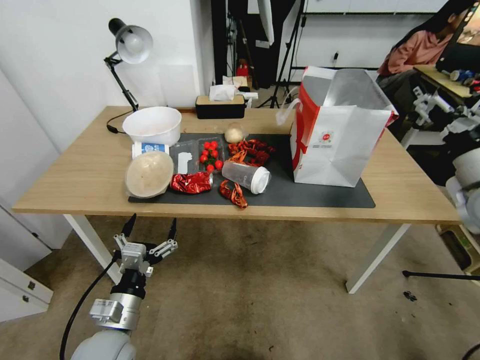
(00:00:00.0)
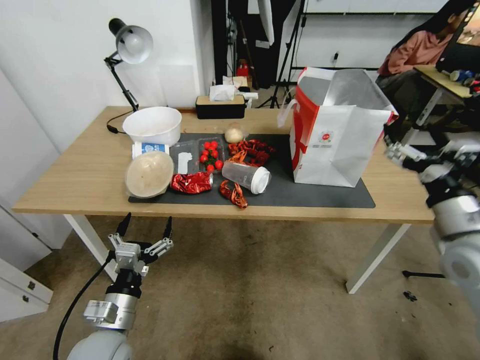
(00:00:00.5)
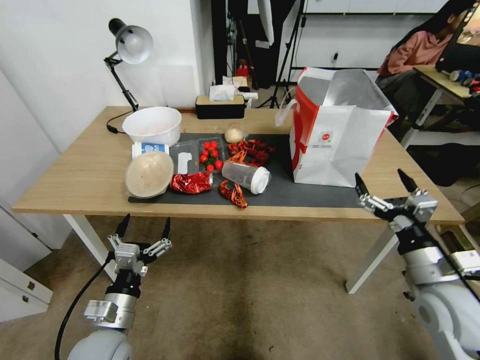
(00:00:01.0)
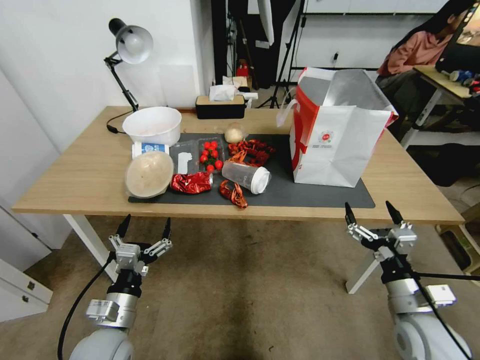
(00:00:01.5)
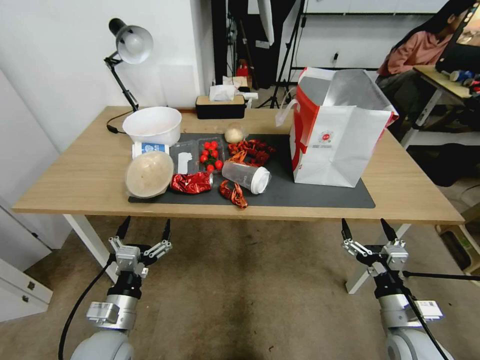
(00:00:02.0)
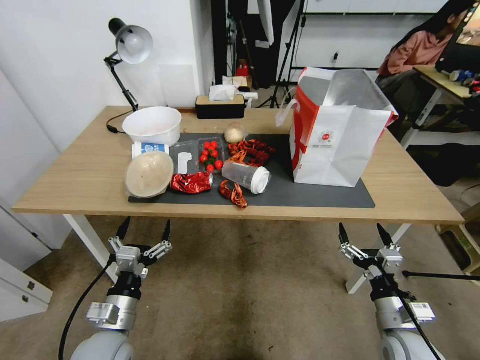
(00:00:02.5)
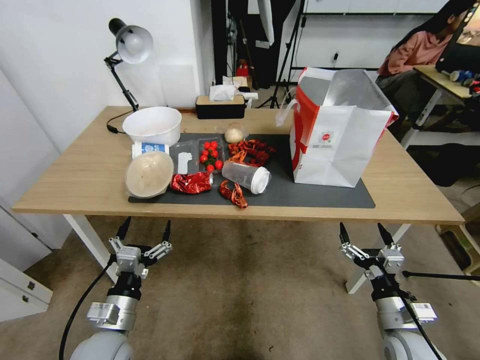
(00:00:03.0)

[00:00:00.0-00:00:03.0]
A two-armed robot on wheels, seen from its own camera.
Task of the whole recording: Pick up the food delivery bag from the floor and place it on the table.
00:00:00.0 to 00:00:01.5: The right gripper is displaced downward, backward and to the left by roughly 25 cm.
00:00:01.5 to 00:00:03.0: The right gripper heads downward, covering about 5 cm.

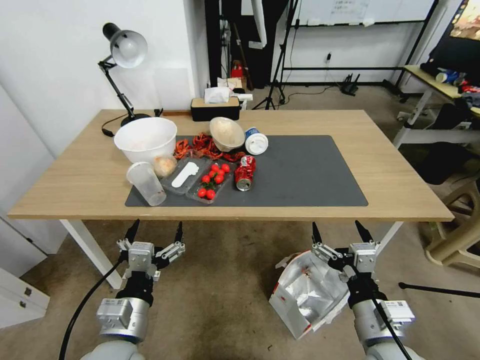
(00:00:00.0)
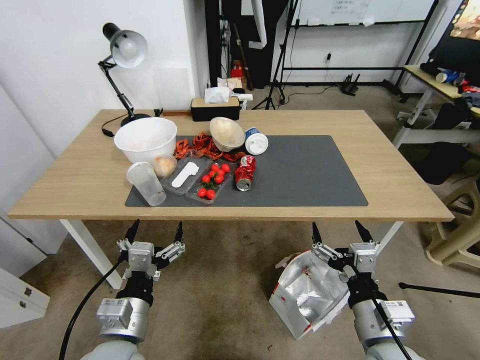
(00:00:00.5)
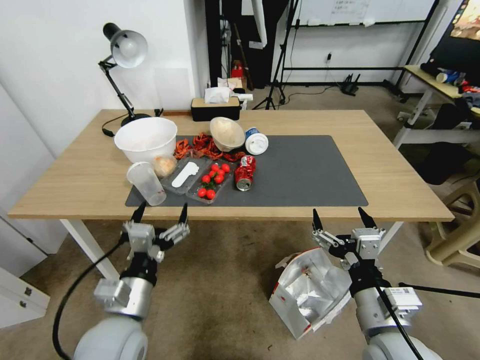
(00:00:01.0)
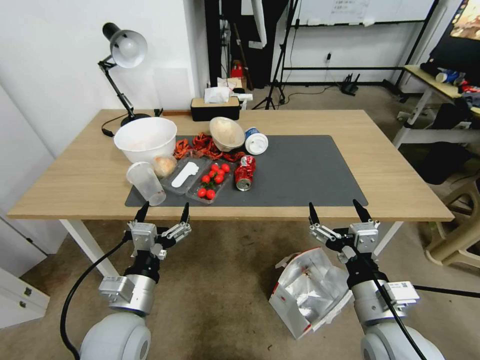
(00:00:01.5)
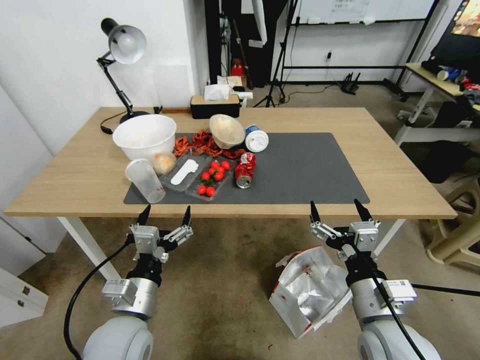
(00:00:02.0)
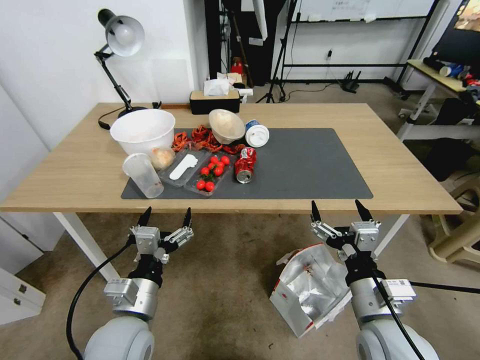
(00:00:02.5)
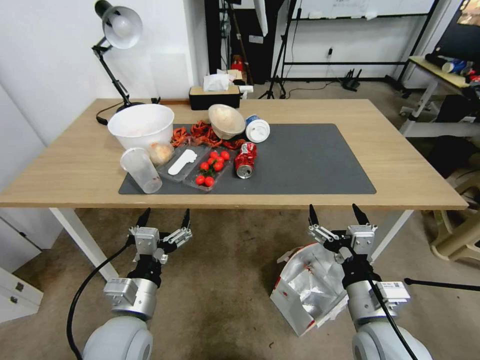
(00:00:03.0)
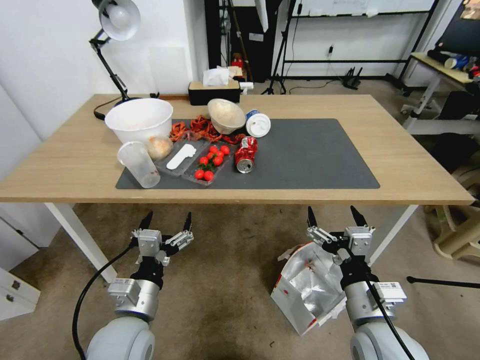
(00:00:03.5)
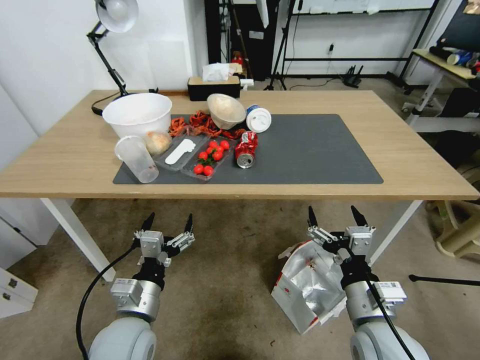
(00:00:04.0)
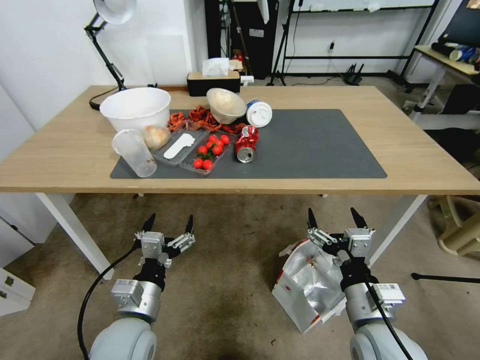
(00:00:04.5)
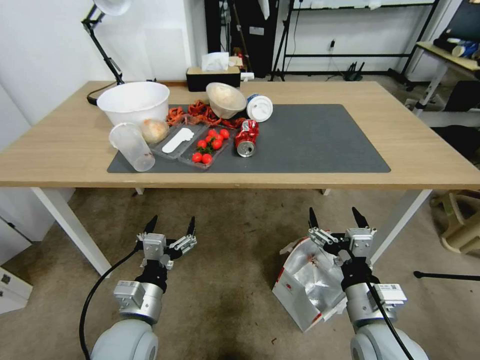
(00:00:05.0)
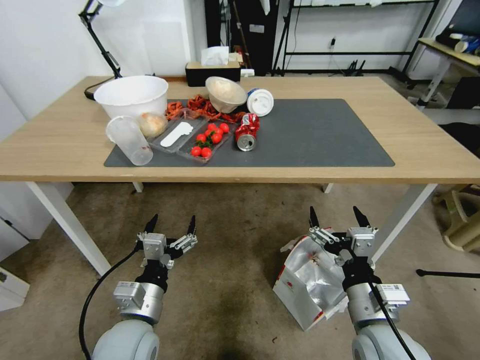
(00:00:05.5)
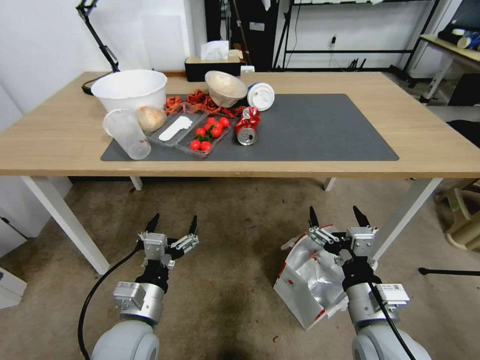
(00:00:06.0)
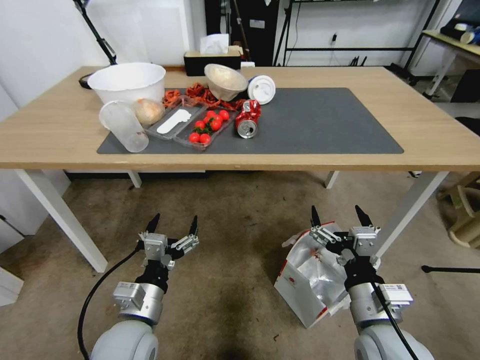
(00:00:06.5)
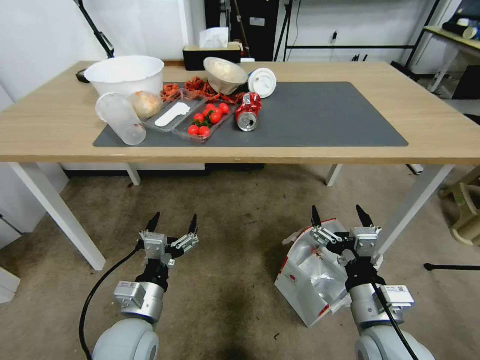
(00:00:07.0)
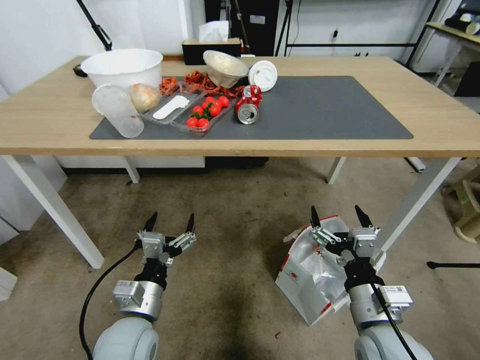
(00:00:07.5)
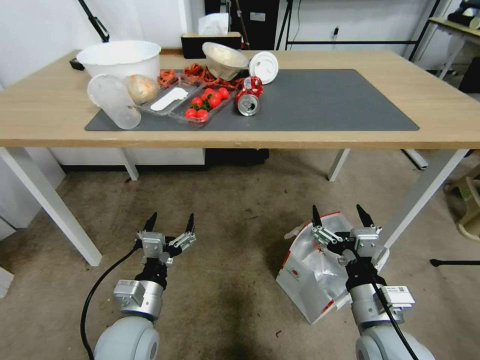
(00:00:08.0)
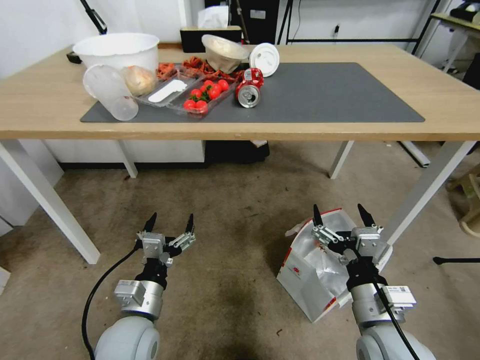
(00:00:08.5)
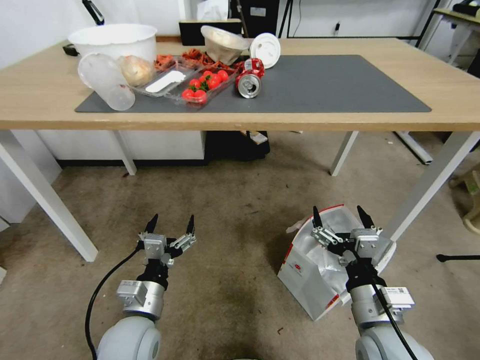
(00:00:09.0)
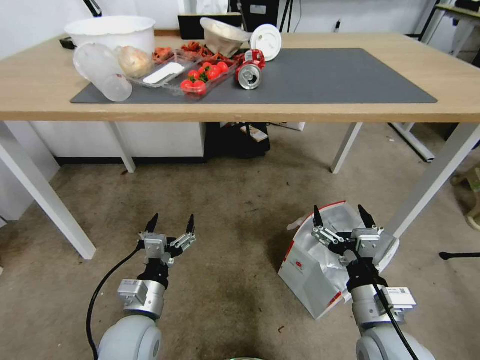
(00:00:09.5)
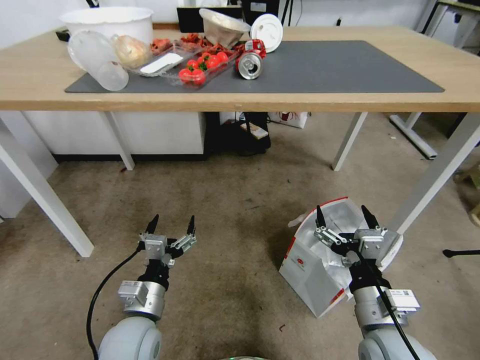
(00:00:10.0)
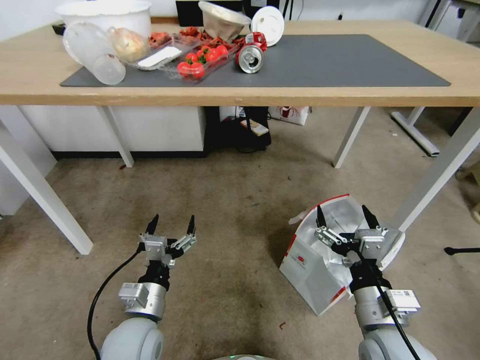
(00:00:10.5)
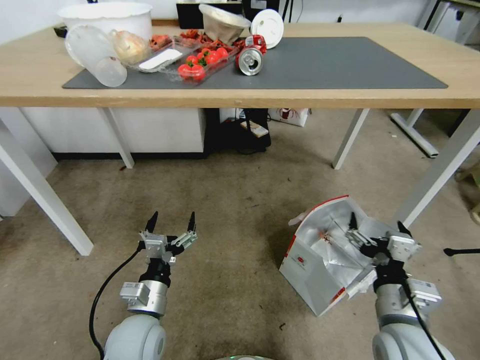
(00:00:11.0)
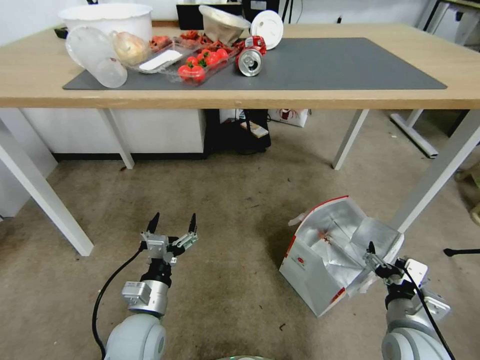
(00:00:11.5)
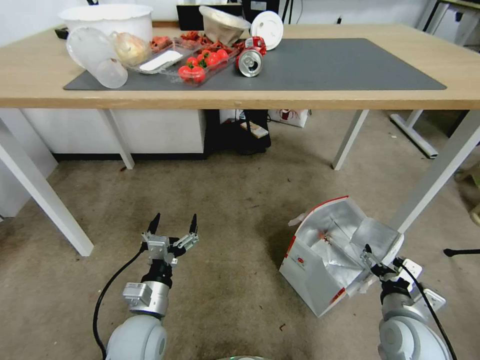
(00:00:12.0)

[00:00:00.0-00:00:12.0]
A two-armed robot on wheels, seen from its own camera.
Task of the whole recording: Pick up the food delivery bag from the floor and place it on the table.
00:00:10.0 to 00:00:12.0: The right gripper goes roughly 10 cm to the right and downward.

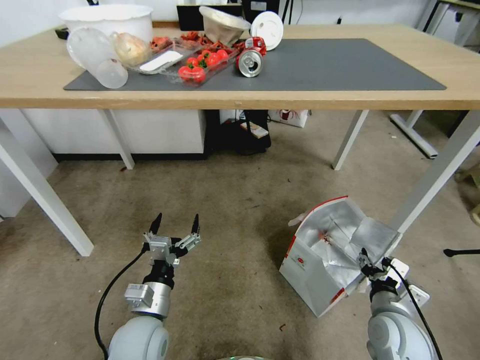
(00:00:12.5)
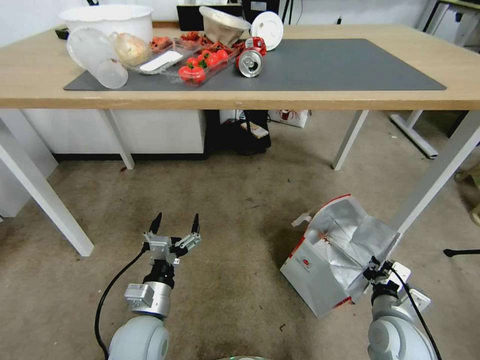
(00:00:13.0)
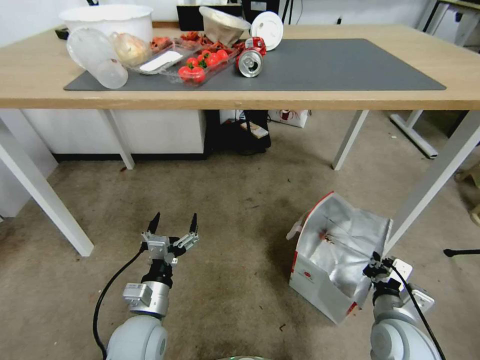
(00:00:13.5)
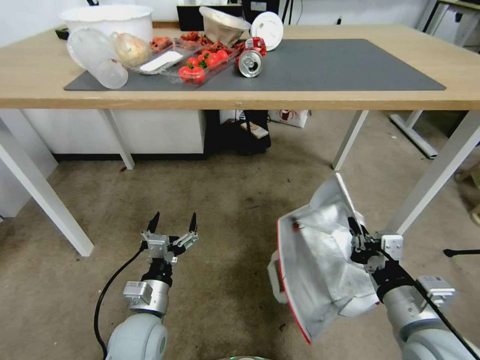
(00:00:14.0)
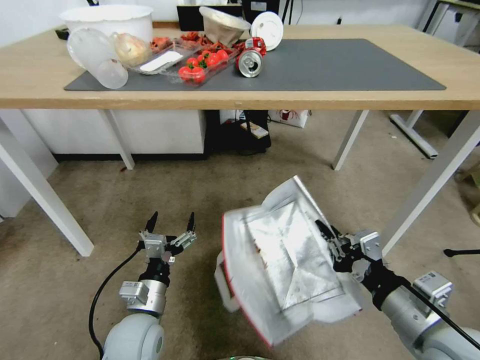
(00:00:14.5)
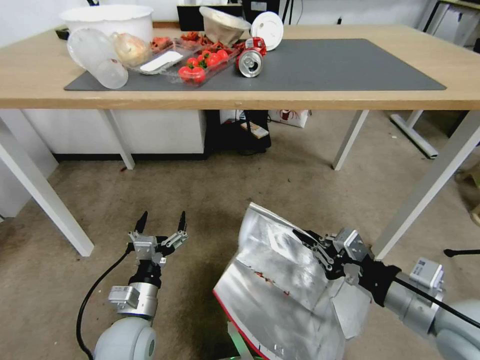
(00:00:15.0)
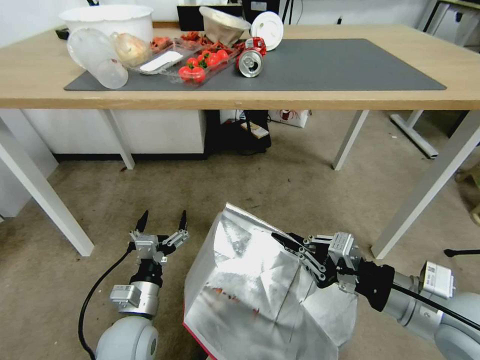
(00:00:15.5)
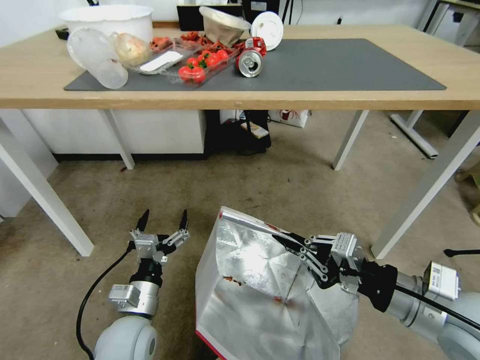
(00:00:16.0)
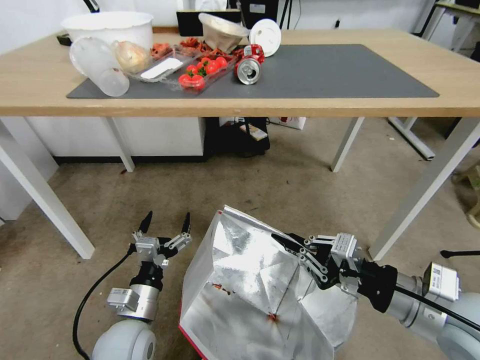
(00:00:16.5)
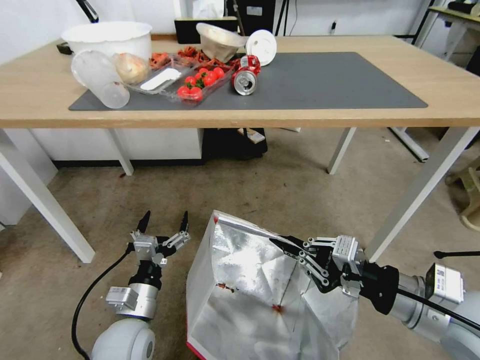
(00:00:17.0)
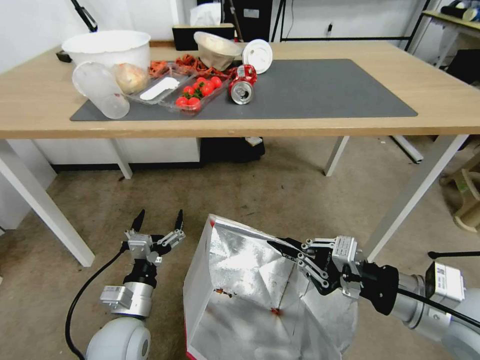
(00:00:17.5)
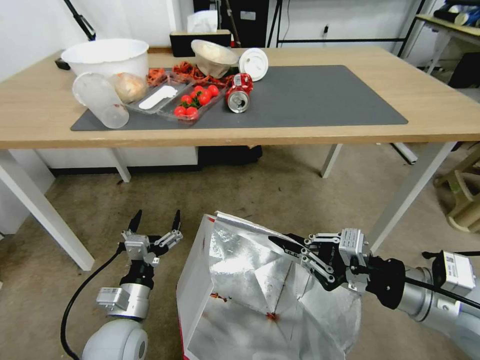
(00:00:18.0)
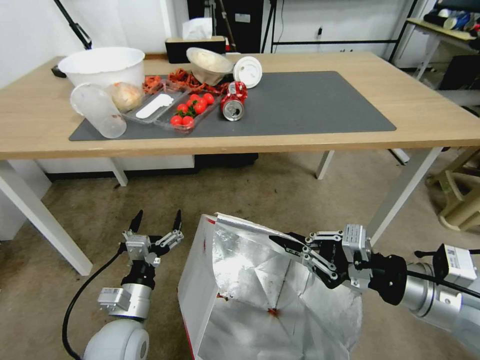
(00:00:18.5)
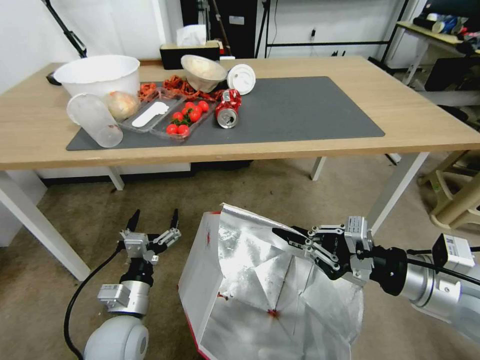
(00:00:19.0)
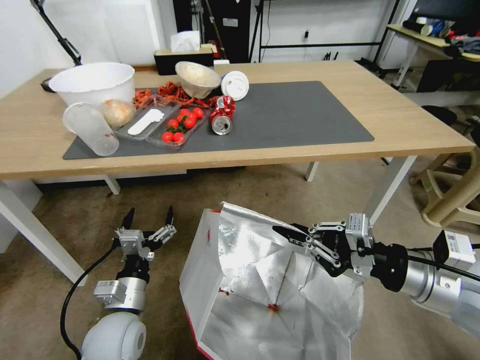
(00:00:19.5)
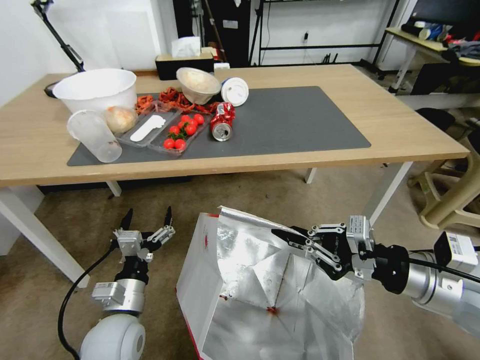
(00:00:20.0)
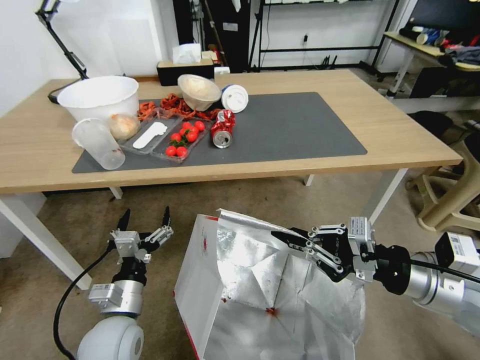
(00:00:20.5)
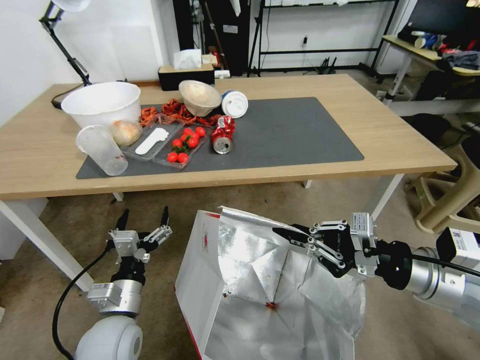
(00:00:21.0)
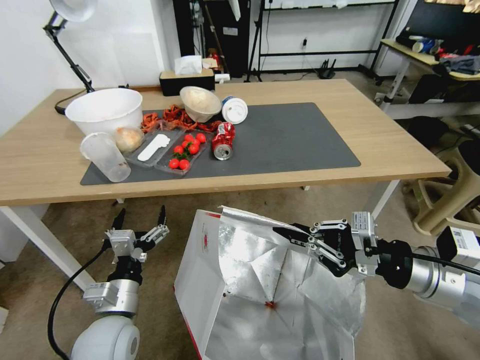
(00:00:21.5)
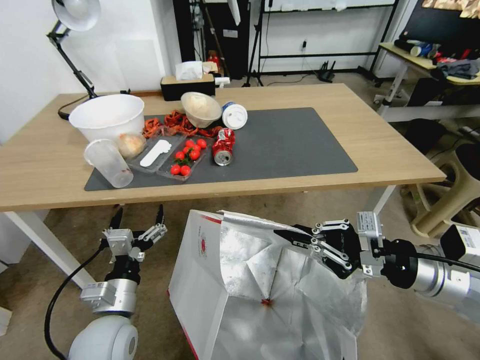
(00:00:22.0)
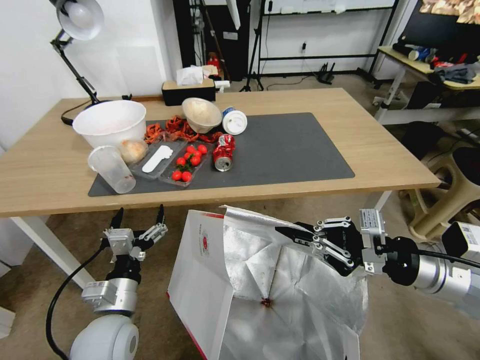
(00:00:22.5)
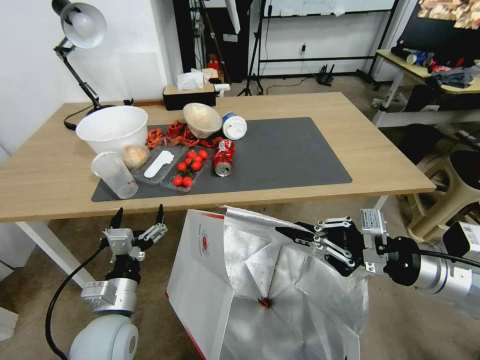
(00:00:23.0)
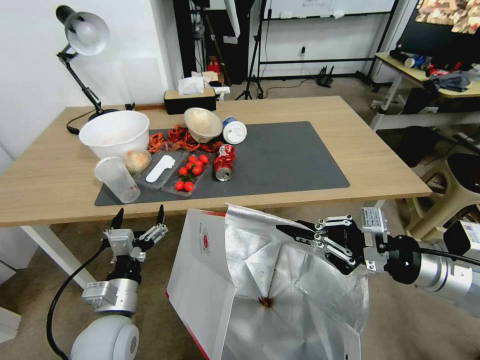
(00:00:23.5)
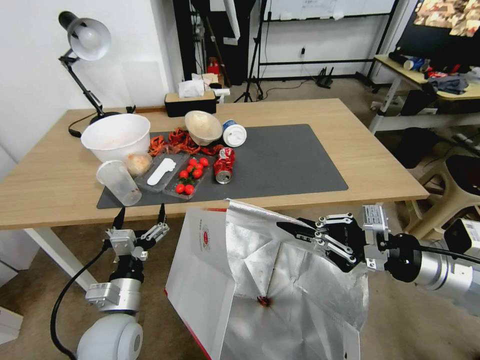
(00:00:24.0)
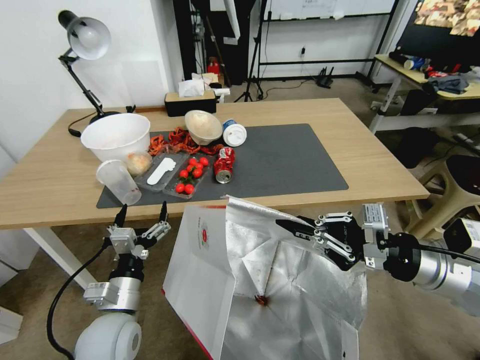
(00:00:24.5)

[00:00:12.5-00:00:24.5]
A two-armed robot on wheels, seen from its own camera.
Task of the whole recording: Pick up the food delivery bag from the floor and place it on the table.
00:00:12.5 to 00:00:14.5: The right gripper shifts some 15 cm upward, and closes its fingers.
